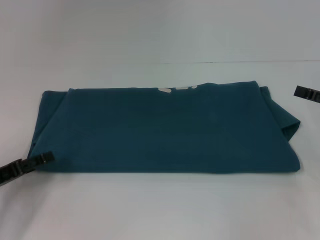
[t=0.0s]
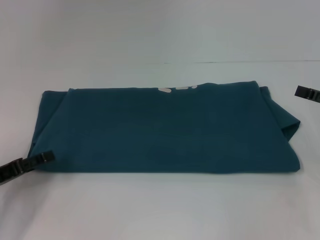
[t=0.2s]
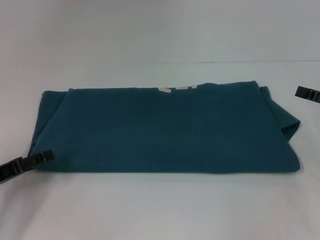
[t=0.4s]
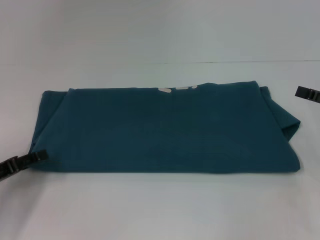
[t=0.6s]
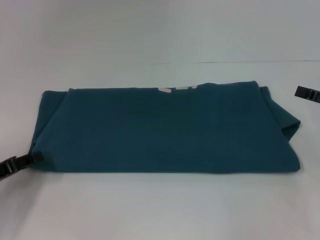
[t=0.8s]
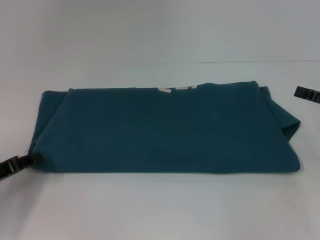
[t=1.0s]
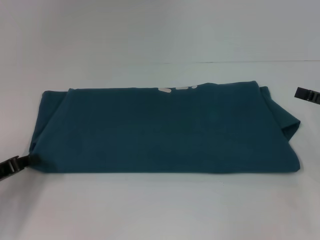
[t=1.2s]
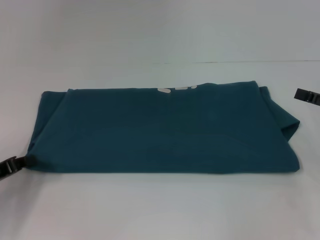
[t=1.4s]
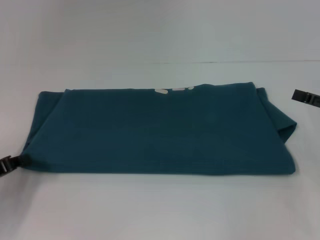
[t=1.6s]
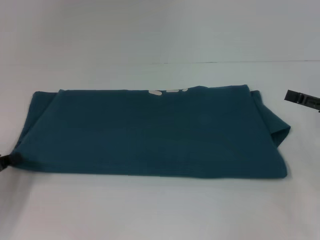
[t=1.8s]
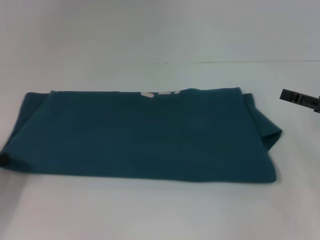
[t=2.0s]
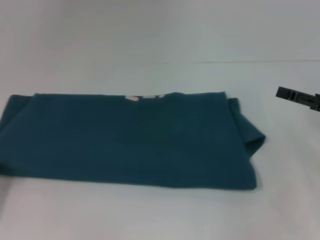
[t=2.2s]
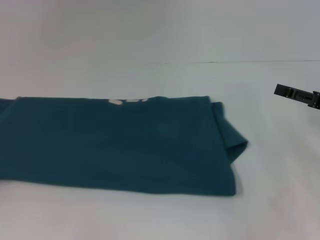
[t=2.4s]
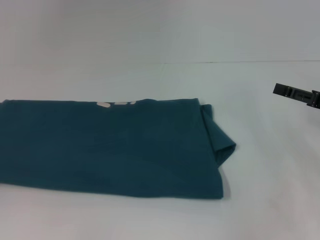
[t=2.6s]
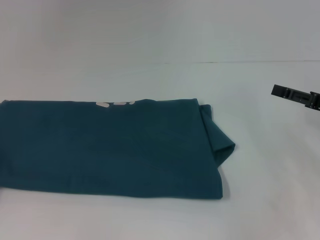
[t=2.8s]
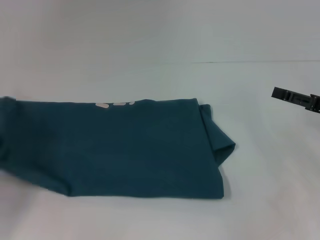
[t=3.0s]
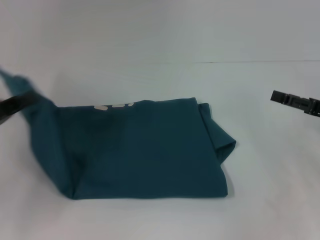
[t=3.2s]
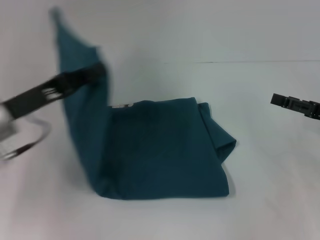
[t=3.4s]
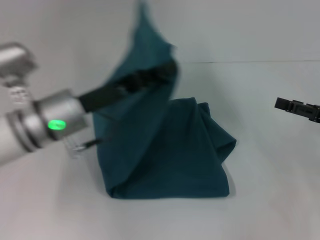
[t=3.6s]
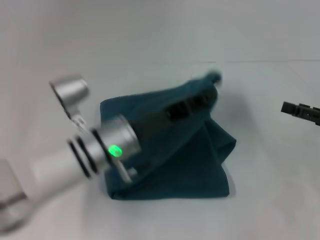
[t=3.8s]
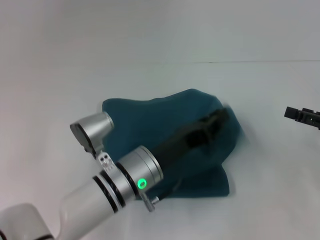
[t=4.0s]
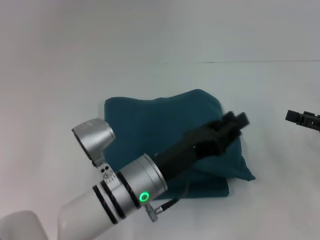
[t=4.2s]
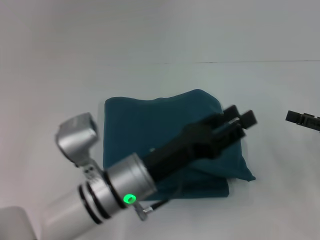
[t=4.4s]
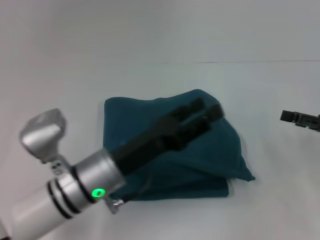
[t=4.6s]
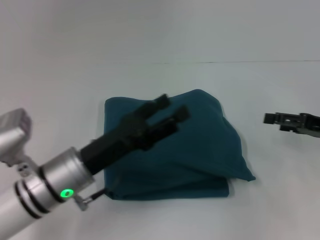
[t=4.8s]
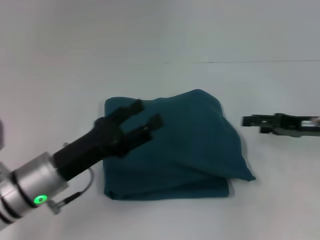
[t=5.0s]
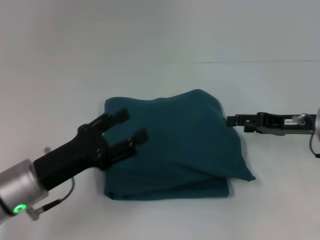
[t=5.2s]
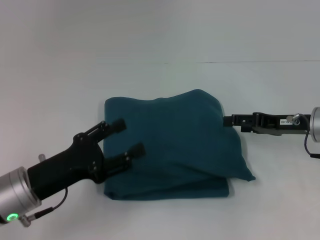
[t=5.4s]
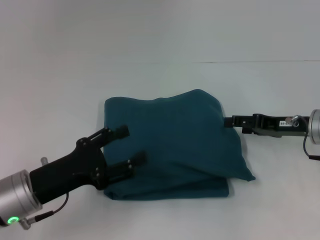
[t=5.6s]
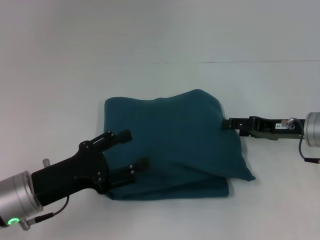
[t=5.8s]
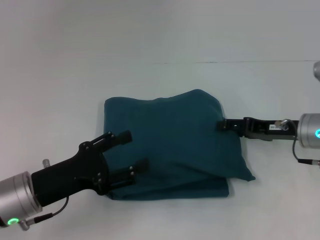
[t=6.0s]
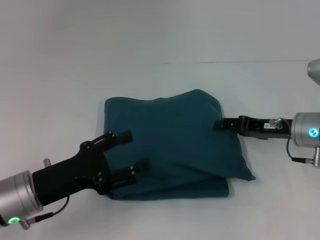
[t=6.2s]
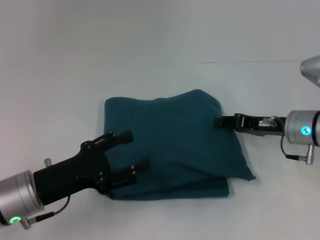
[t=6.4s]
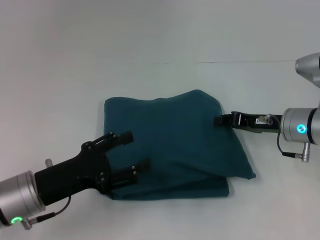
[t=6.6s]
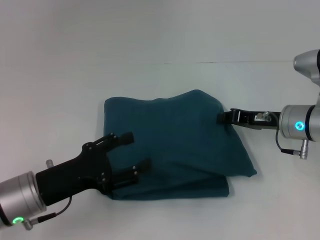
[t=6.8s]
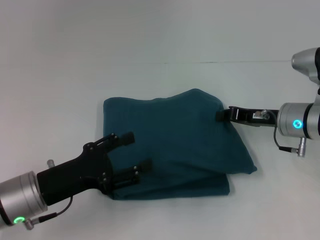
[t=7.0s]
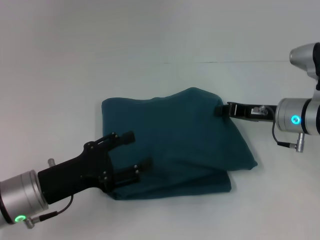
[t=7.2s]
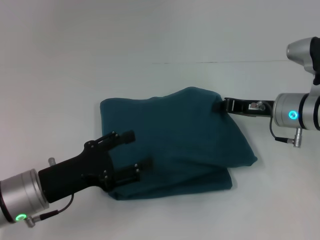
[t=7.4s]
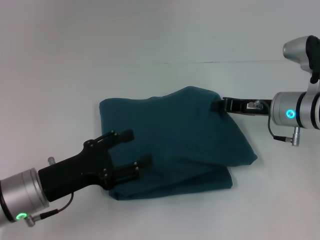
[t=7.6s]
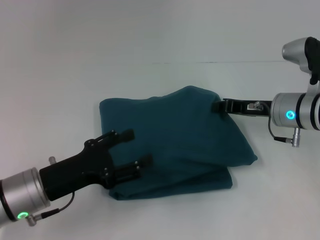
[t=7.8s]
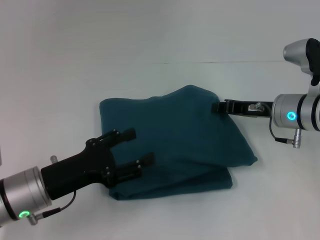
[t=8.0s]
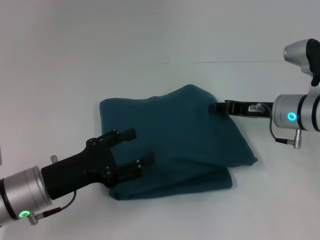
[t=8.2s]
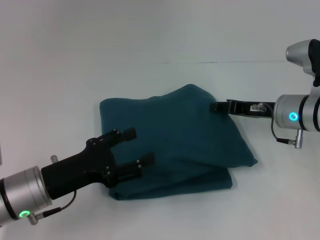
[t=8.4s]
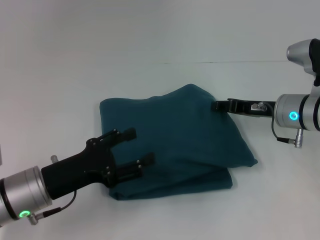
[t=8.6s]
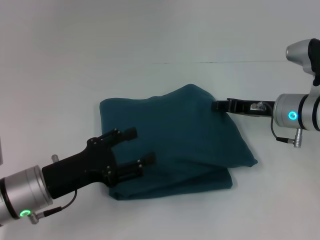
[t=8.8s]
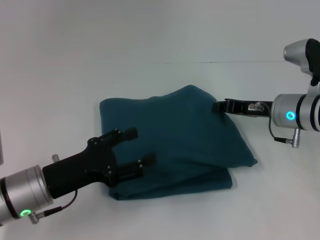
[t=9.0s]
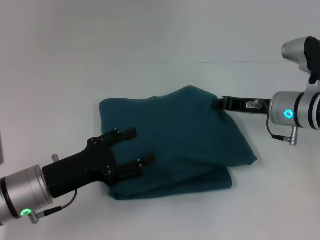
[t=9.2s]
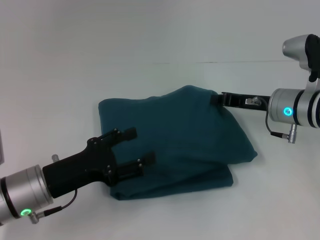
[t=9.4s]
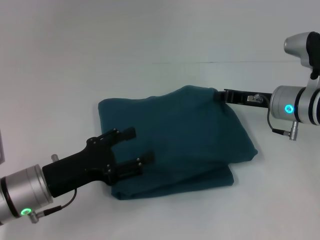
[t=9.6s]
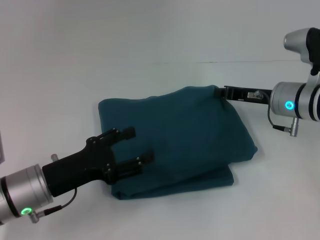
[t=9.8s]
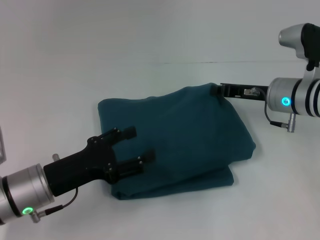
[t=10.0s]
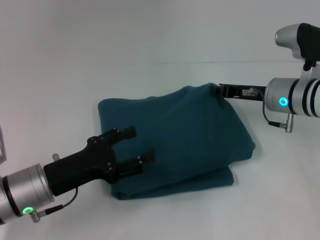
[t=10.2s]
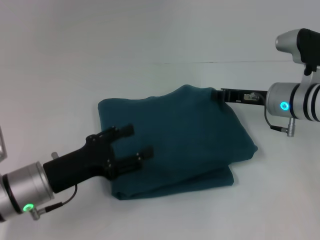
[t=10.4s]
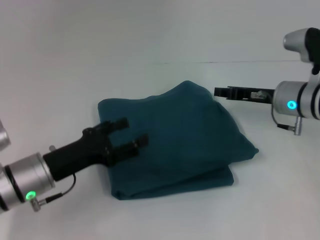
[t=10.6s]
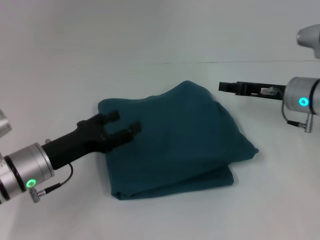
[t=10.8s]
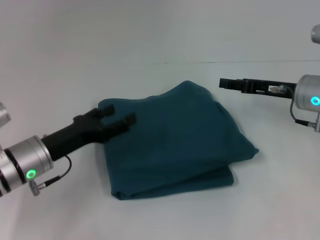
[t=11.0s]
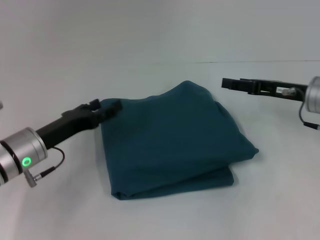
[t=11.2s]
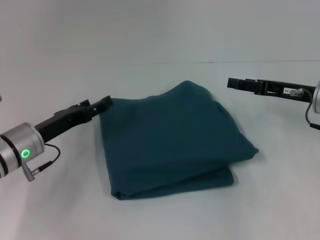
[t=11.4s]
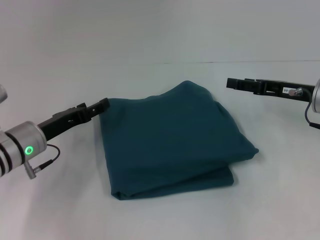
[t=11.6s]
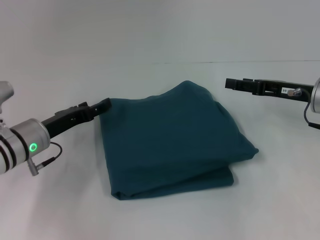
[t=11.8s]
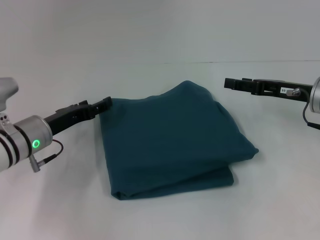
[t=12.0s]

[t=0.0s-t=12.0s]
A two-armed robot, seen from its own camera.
Step, t=0.0s to t=4.2s: Fold the clothes to the left.
t=0.0s to t=1.6s: The left gripper closes up.
t=1.6s to t=3.0s: The left gripper ends up about 5 cm from where it was.
t=3.0s to t=4.4s: The left gripper is displaced to the right by approximately 30 cm.
t=4.4s to t=6.0s: The left gripper travels to the left by approximately 15 cm, and opens up. The right gripper shifts about 10 cm to the left and forward.
t=6.0s to t=7.6s: The right gripper changes place by roughly 5 cm, and closes its fingers.
t=7.6s to t=9.0s: The two grippers keep their place.
t=9.0s to t=10.4s: The grippers stay close to where they were, moving slightly.
t=10.4s to t=12.0s: The left gripper moves forward, about 10 cm; the right gripper heads to the right, covering about 5 cm, and opens up.

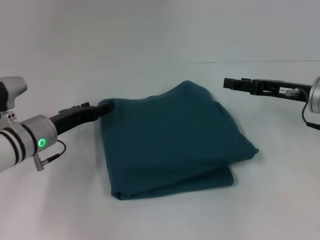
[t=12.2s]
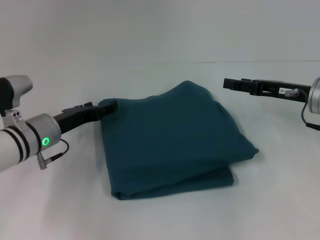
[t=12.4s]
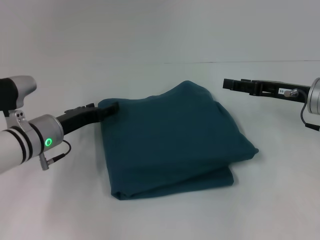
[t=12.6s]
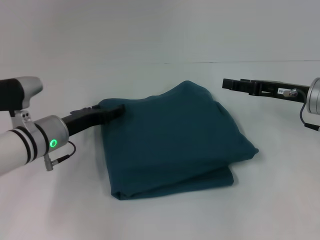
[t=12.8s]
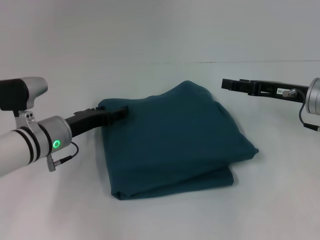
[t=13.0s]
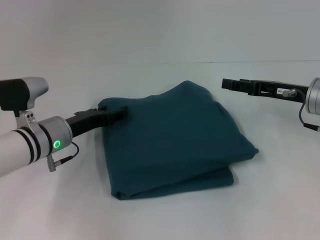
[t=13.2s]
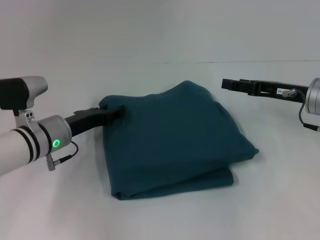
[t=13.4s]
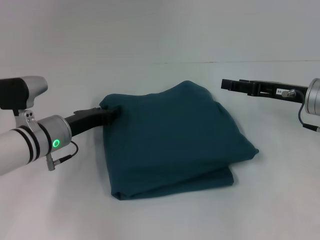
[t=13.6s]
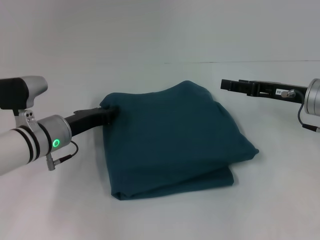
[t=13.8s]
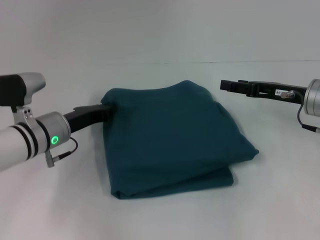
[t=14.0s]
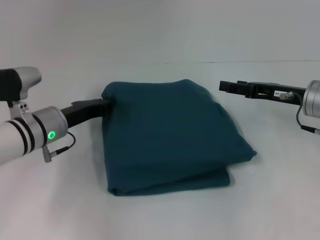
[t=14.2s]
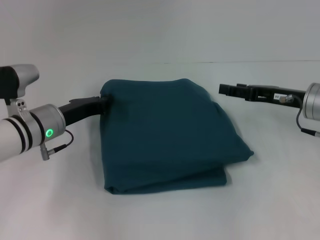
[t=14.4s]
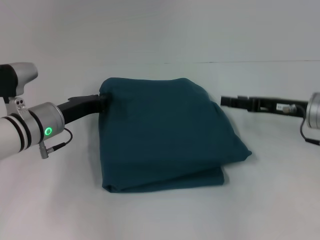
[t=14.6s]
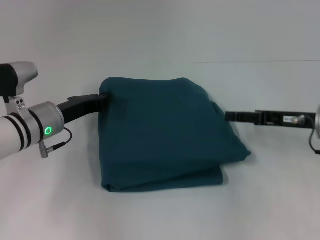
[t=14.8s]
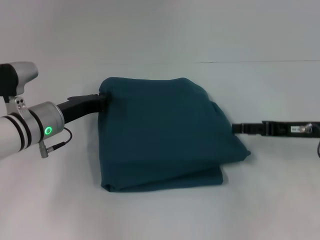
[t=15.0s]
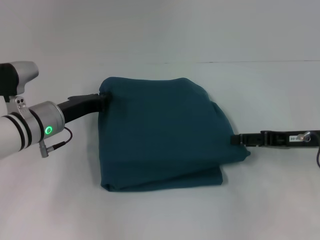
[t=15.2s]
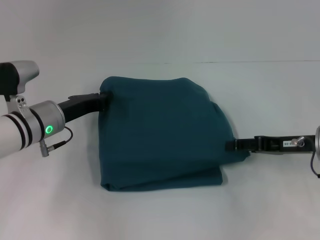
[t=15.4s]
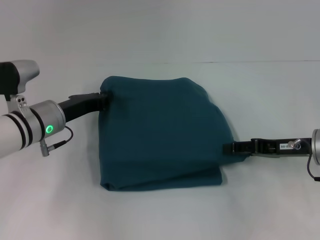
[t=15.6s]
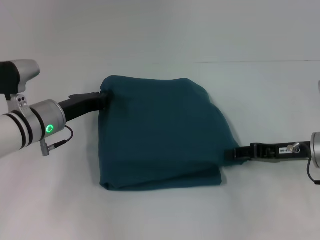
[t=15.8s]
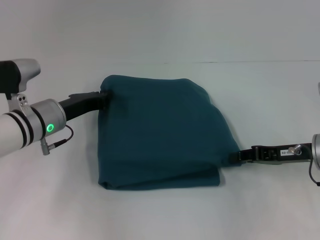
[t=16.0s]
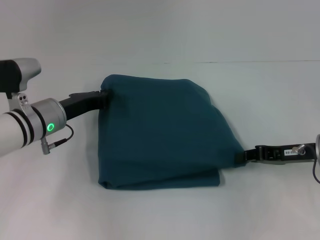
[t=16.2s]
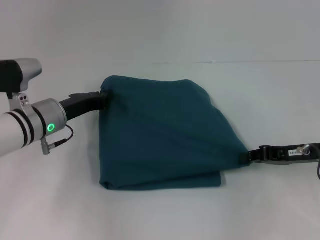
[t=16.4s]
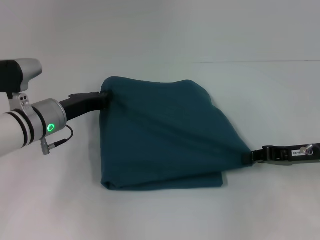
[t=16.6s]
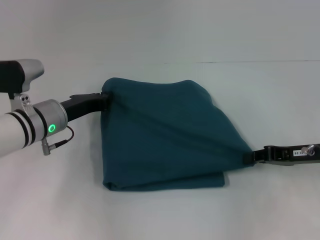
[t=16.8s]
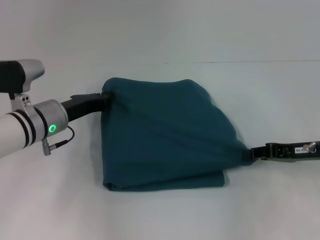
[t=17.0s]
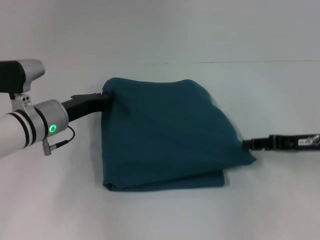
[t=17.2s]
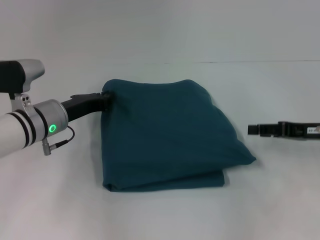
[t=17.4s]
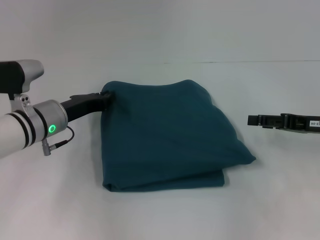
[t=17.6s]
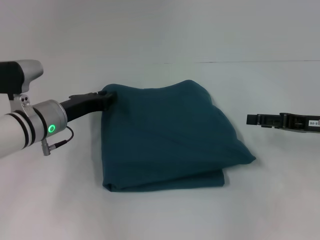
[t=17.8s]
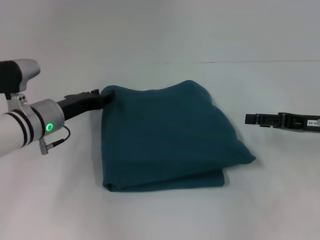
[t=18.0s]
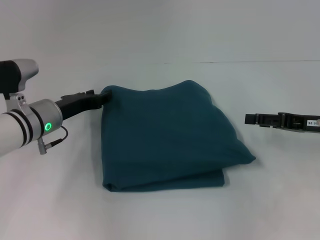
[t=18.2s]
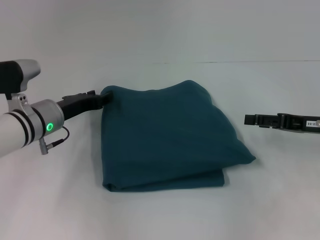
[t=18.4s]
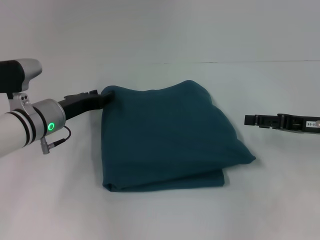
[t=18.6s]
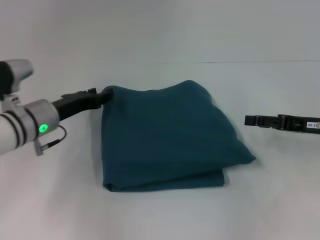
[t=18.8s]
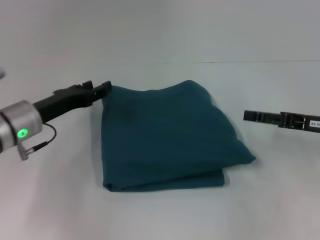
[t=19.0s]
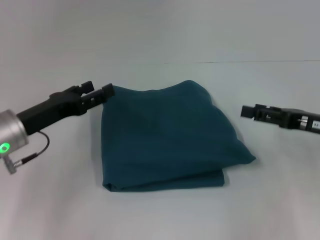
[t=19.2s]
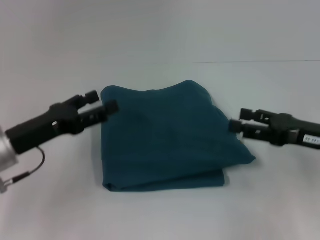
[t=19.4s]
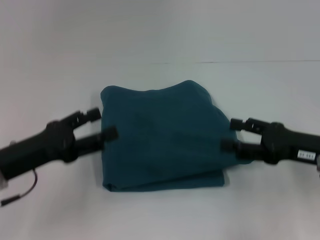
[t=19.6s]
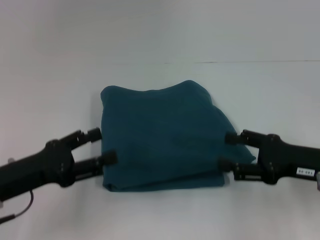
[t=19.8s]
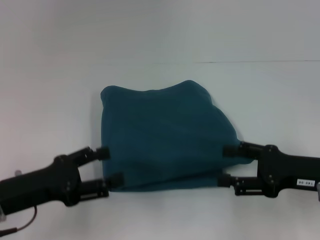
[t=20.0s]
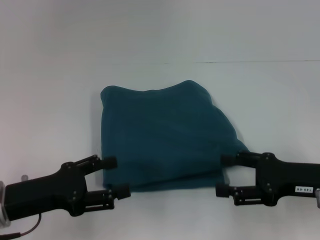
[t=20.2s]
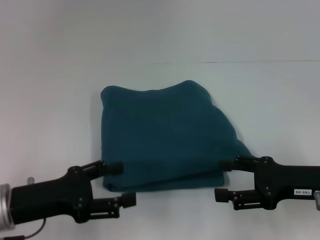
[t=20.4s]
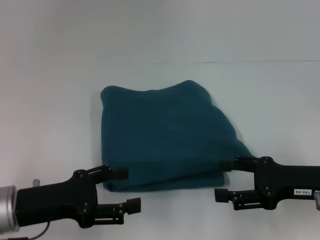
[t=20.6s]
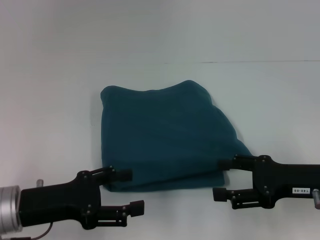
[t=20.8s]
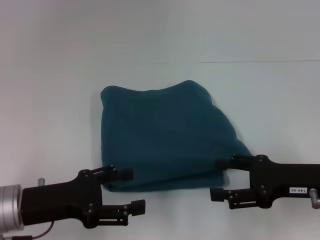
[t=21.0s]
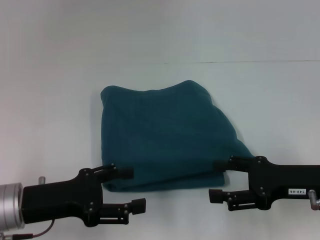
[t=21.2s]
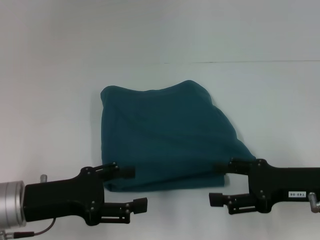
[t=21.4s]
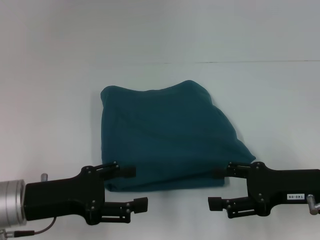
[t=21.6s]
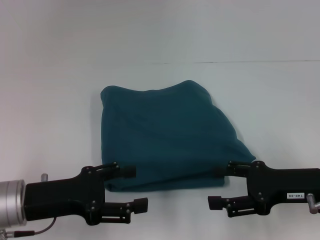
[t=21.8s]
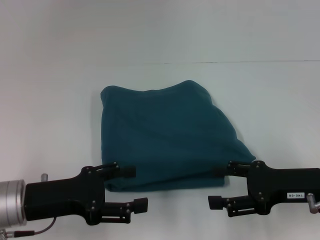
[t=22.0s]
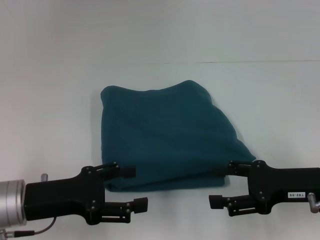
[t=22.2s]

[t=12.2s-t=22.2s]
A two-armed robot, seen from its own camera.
t=12.2s to t=13.6s: The left gripper closes.
t=13.6s to t=15.0s: The left gripper closes.
t=15.0s to t=16.4s: The right gripper closes up.
t=16.4s to t=18.0s: The right gripper opens its fingers.
t=18.0s to t=19.4s: The left gripper is displaced backward by roughly 10 cm, and opens.
t=19.4s to t=20.8s: The left gripper goes approximately 5 cm backward.
t=20.8s to t=22.2s: Both grippers stay put.
